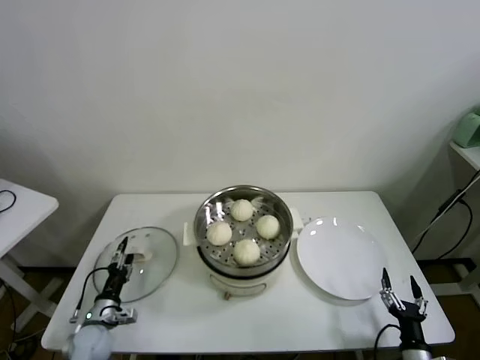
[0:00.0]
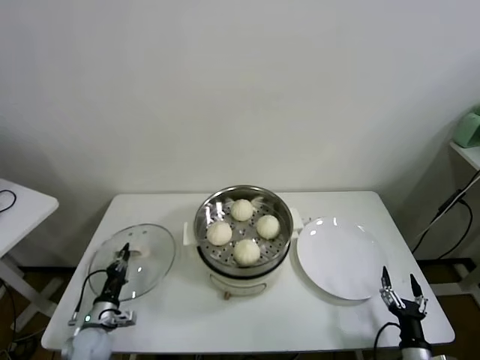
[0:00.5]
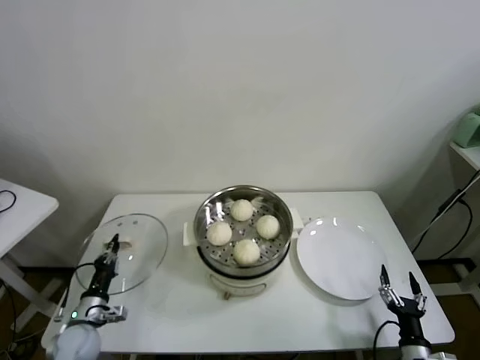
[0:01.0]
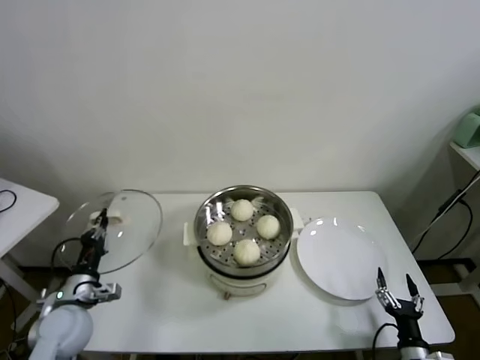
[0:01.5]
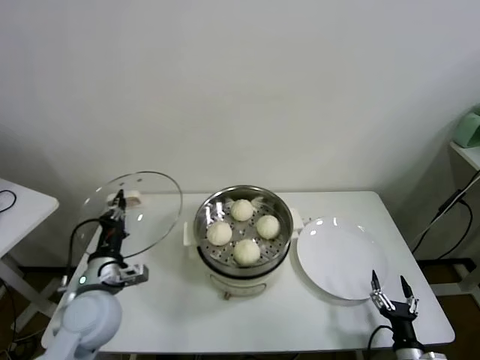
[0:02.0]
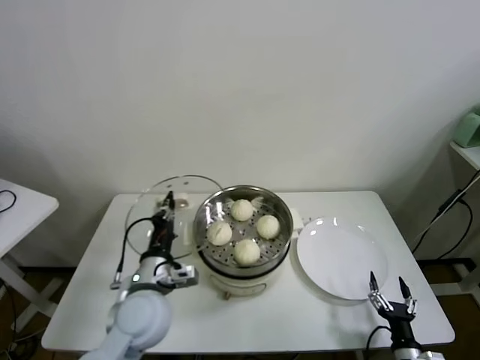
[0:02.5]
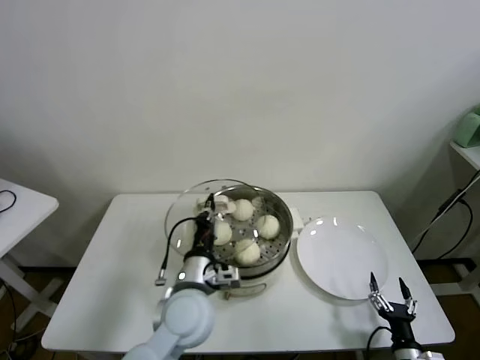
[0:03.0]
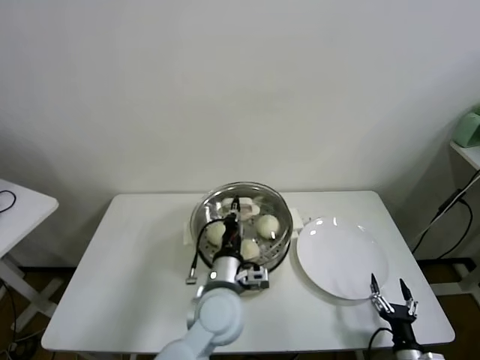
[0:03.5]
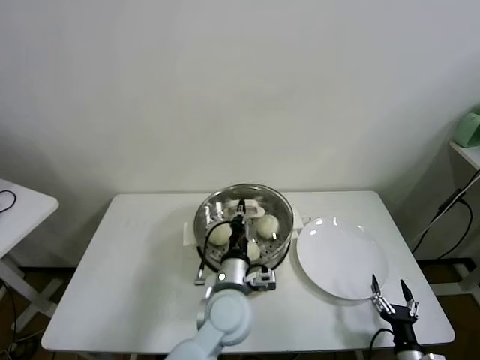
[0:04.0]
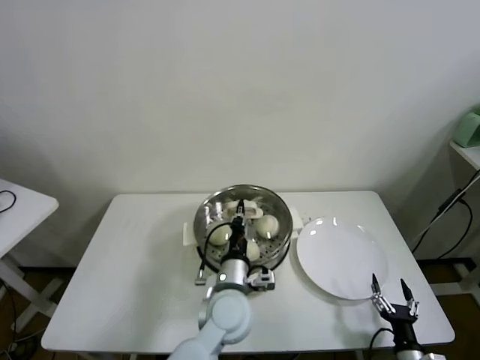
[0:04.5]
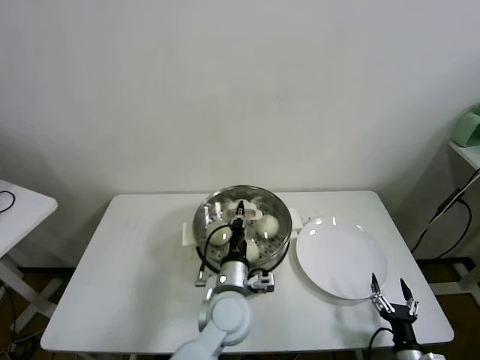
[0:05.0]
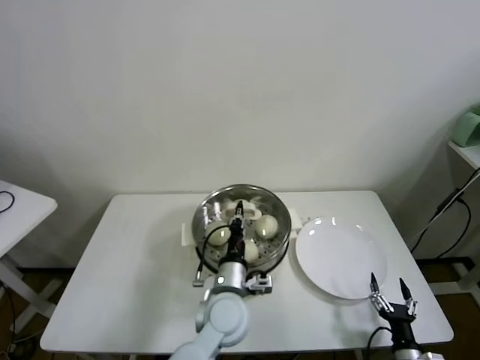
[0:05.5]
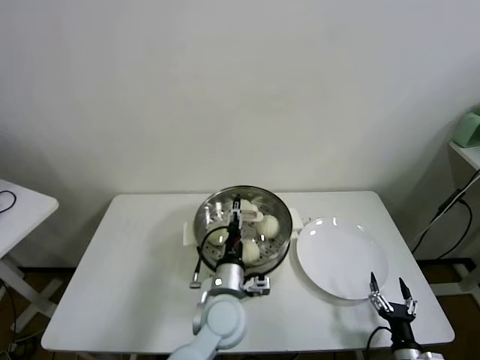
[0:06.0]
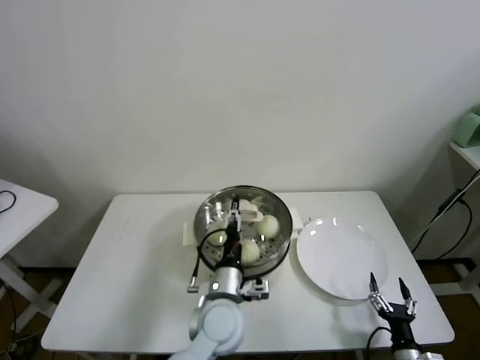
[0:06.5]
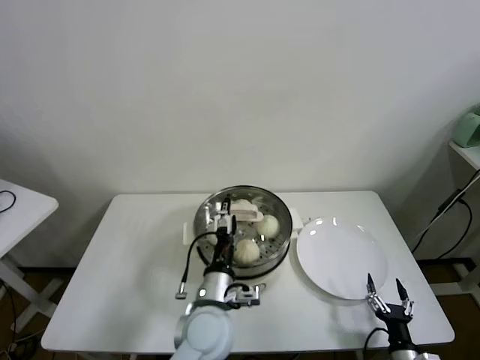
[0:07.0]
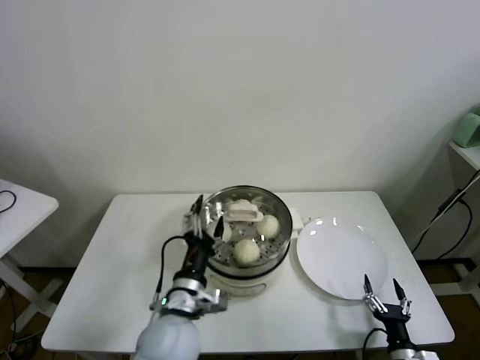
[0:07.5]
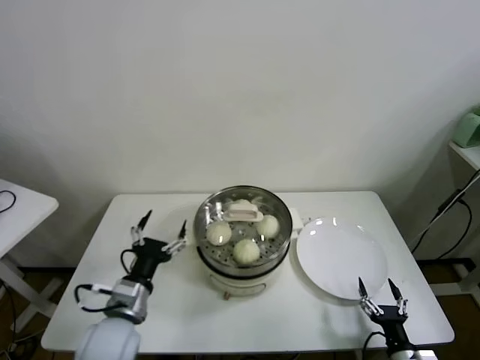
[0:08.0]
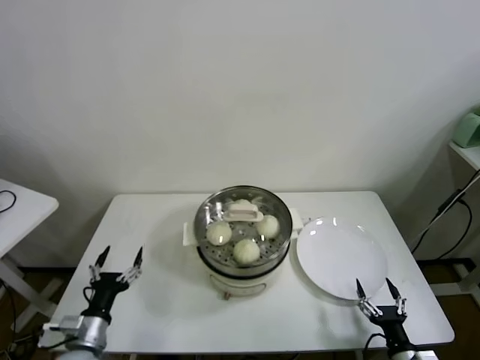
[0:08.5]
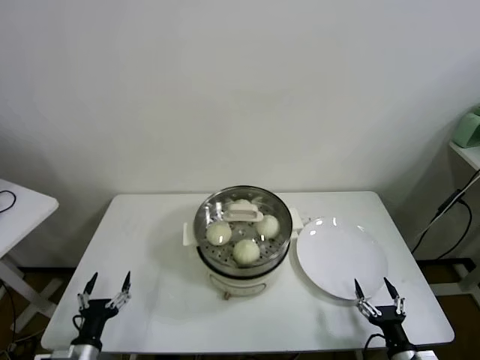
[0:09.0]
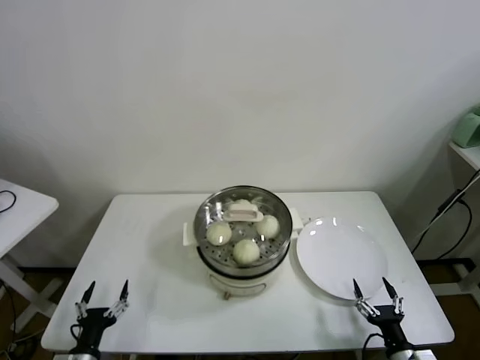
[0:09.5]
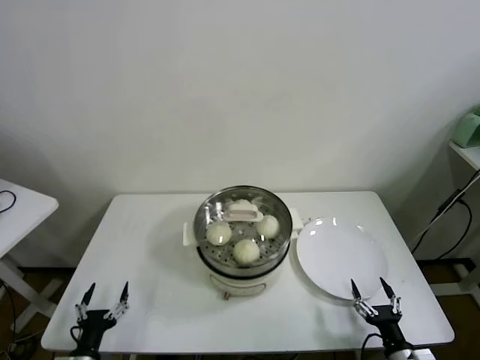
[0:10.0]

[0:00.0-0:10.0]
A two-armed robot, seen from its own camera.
Task of the whole recording: take steamed baozi put them in steamer.
Step, 0.5 to 6.5 s: Place the pot lid on the steamer with left gripper.
0.0 to 2.0 s: The left gripper goes approximately 25 cm upward and to the right, and closes its fingers.
2.0 to 4.0 s: The left gripper travels to the right by roughly 25 cm.
4.0 to 6.0 s: The left gripper opens its fingers.
6.0 to 8.0 s: The left gripper travels to the left by roughly 20 cm, and opens.
8.0 to 10.0 s: The left gripper is displaced downward, to the left and backward by some 25 cm.

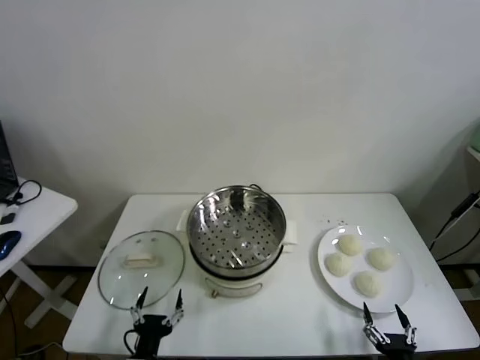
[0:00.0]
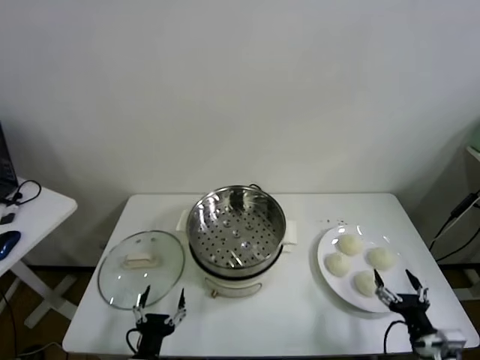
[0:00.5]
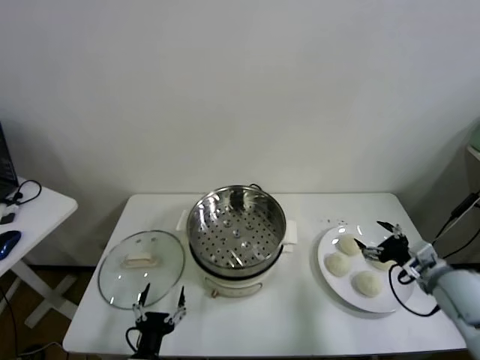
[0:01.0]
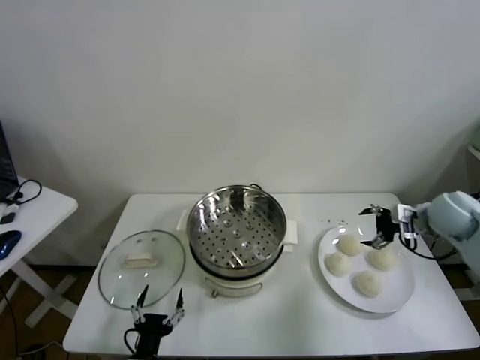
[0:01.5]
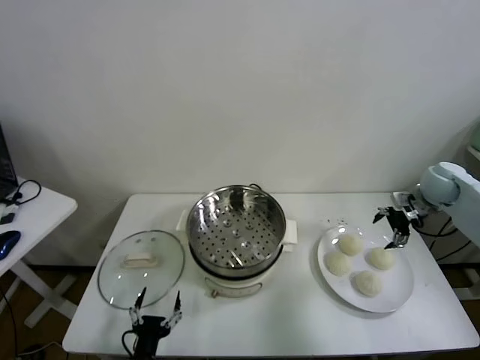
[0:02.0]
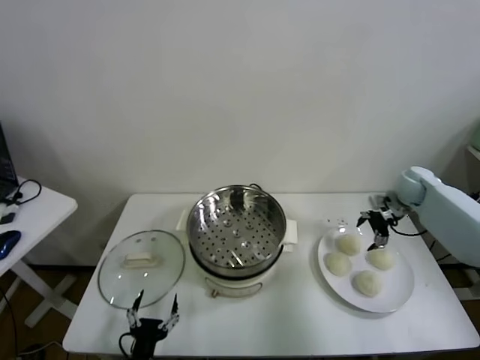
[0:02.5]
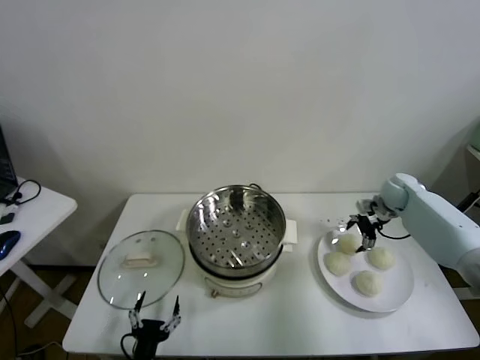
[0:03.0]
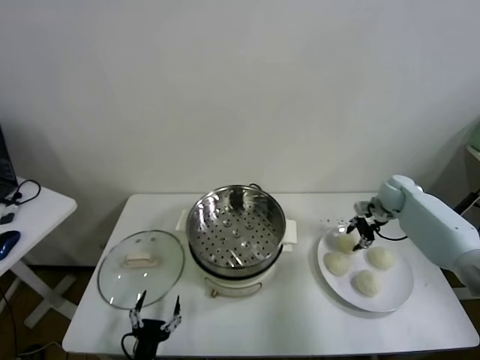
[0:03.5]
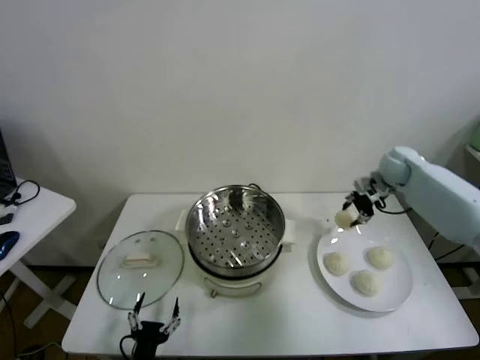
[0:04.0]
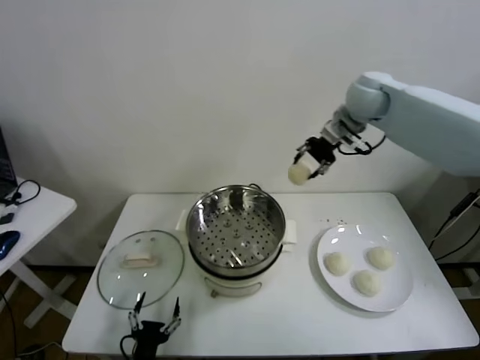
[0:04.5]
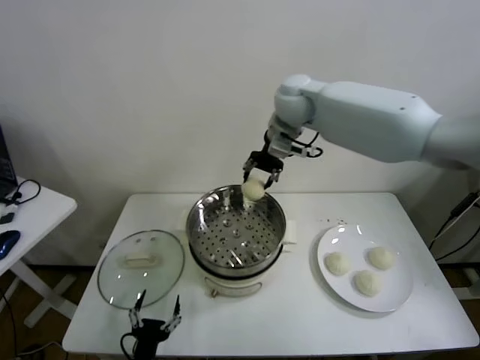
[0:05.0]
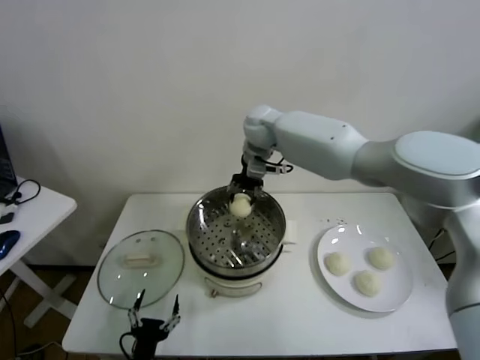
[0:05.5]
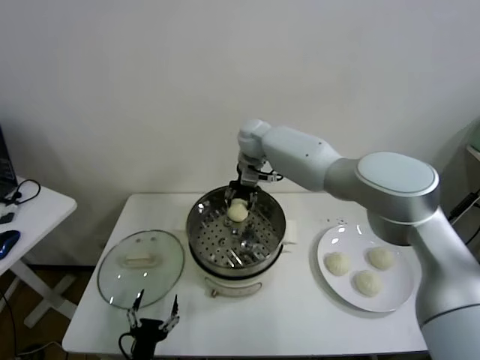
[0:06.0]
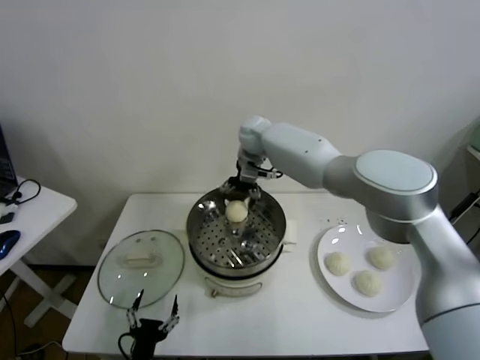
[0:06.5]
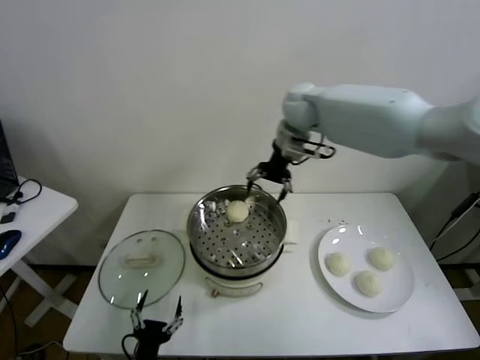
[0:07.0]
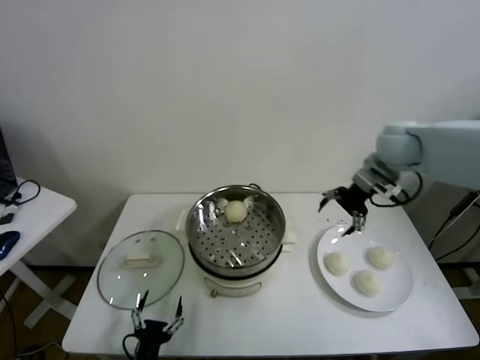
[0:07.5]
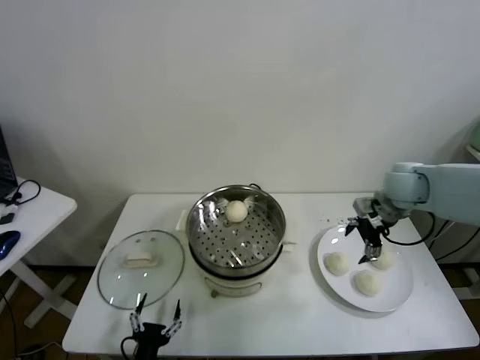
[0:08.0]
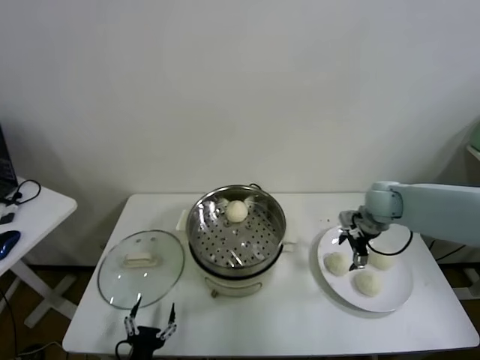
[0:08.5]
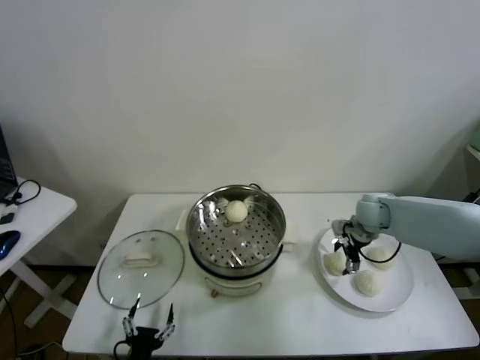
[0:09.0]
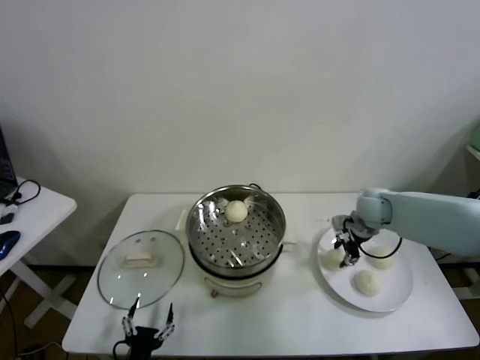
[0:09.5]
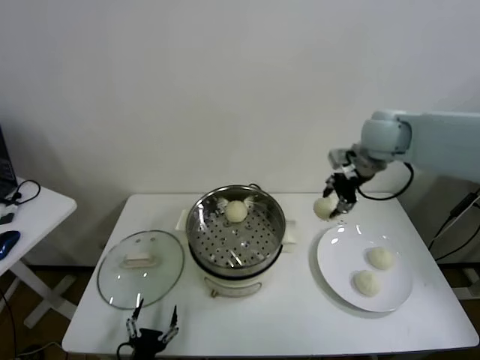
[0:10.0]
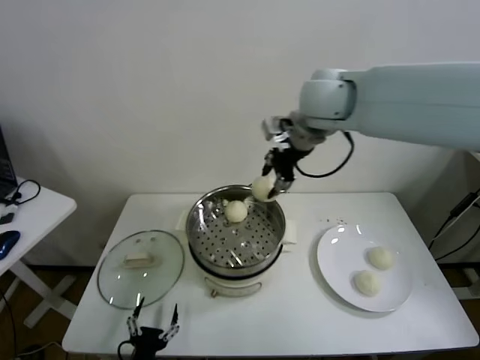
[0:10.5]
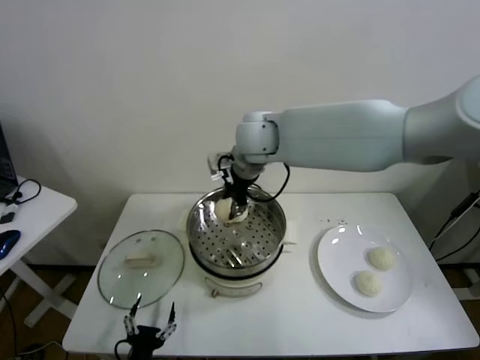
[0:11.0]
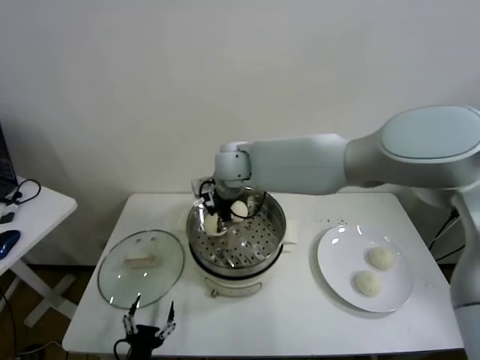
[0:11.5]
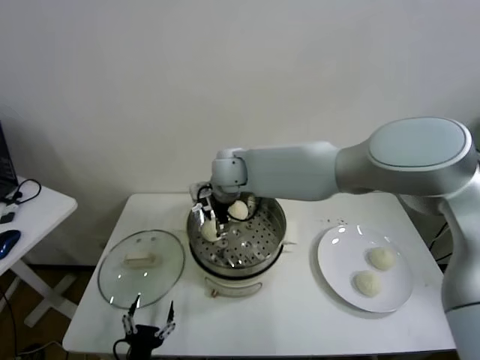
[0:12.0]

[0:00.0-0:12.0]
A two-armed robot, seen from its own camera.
Task of the whole recording: take steamed baozi put them in steamer.
Step, 0.0 to 3.5 s: Grasp the baozi in the plate with right gripper.
Step, 4.0 to 6.5 s: Place the baozi on the steamer with right gripper.
Step, 7.0 to 9.0 s: Grasp the baozi in the plate with right gripper.
Step, 9.5 to 12.0 s: Place the baozi on the steamer with right gripper.
2.0 to 4.0 s: The right gripper moves to the left, forward and upward, about 15 cm, and closes.
4.0 to 6.0 s: The right gripper shifts approximately 35 cm to the left.
6.0 to 8.0 s: The right gripper travels to the right and backward by some 35 cm, and opens.
8.0 to 10.0 s: The right gripper travels upward and to the left by about 20 cm, and closes its fingers.
10.0 to 12.0 s: The right gripper travels to the left and downward by some 30 cm, and opens.

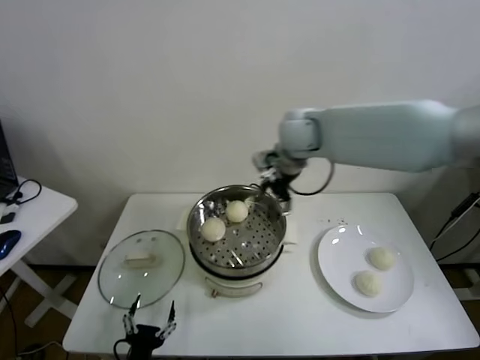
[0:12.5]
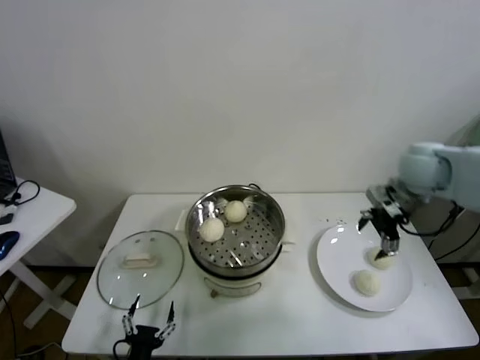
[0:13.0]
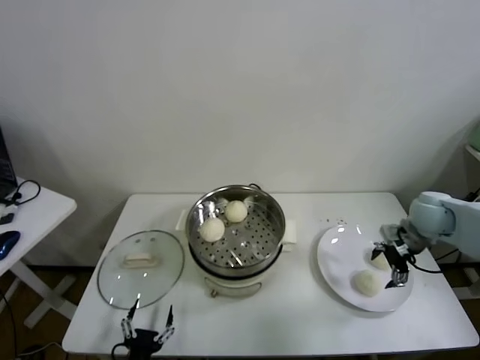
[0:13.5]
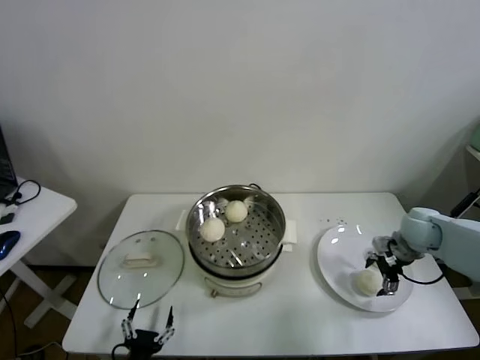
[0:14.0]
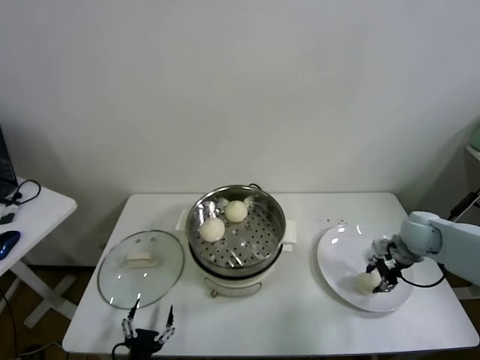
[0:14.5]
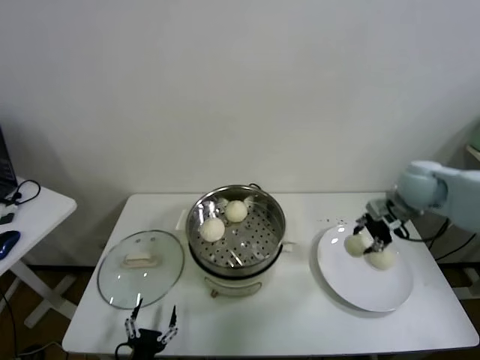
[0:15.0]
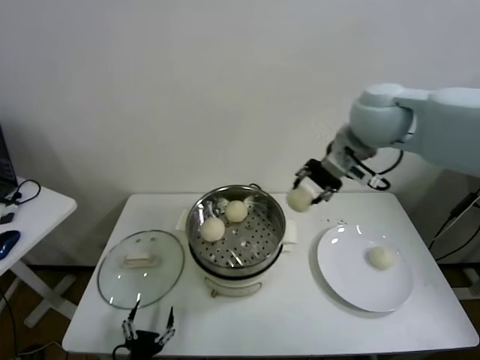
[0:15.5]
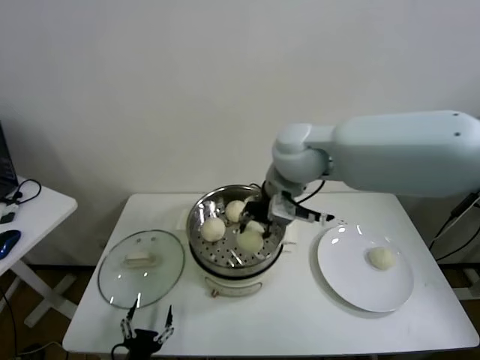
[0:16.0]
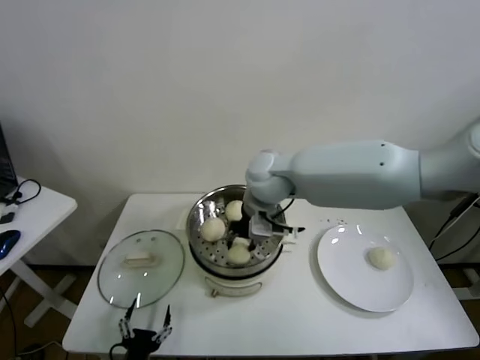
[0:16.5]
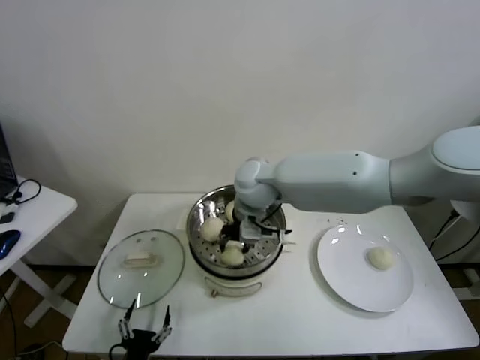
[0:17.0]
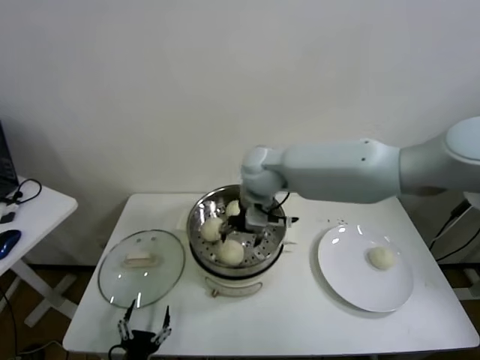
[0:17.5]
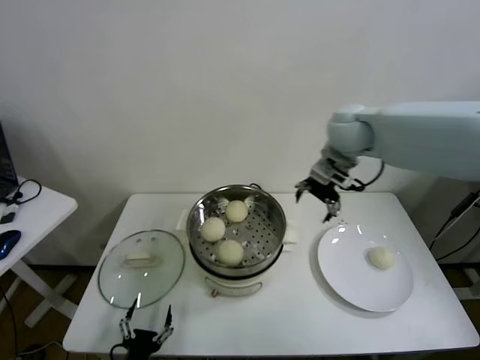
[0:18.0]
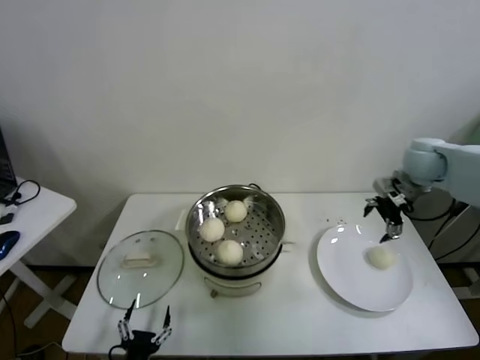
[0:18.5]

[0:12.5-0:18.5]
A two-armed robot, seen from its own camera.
Task of the whole recording: take steamed baozi put them in steamer.
Step, 12.5 to 14.5 s: Grasp the baozi in the plate with right gripper.
Step, 15.0 to 17.0 s: Place the baozi on the steamer with right gripper.
12.5 to 14.5 s: The right gripper is displaced to the right and downward by some 35 cm, and closes up.
14.5 to 16.5 s: The right gripper goes about 40 cm to the left and upward.
16.5 to 18.5 s: The right gripper moves to the right, about 35 cm, and opens its fingers.
